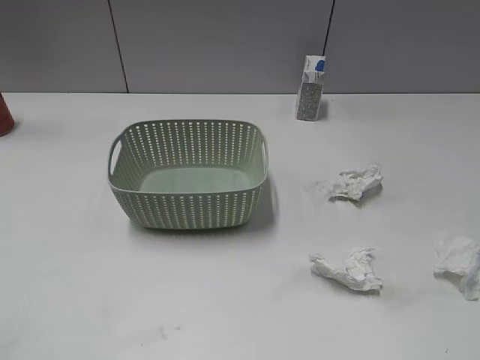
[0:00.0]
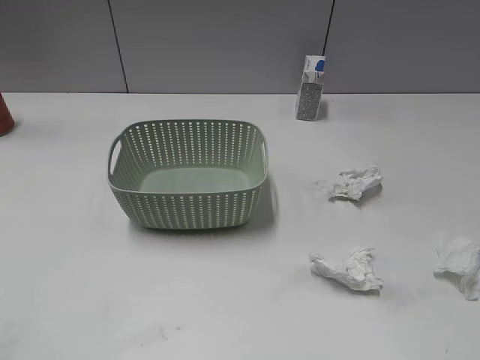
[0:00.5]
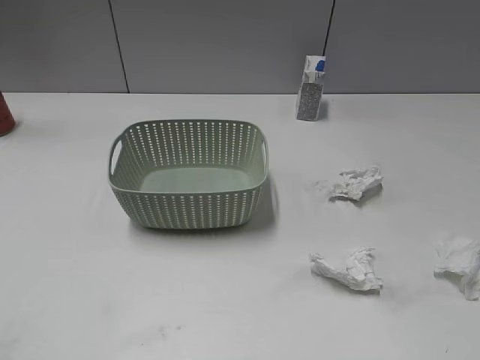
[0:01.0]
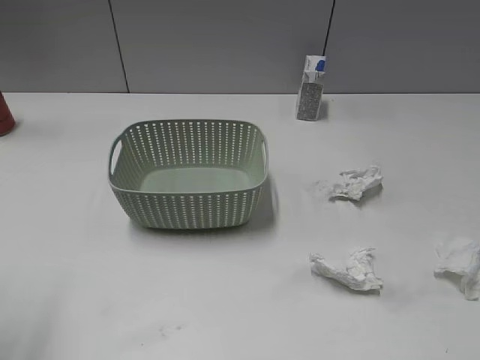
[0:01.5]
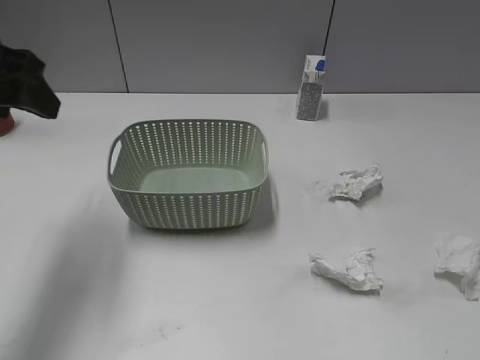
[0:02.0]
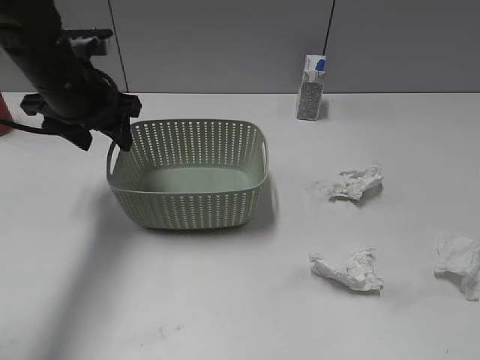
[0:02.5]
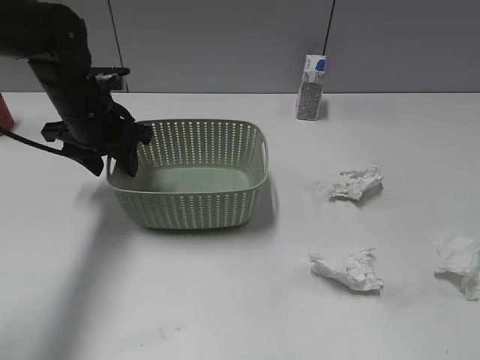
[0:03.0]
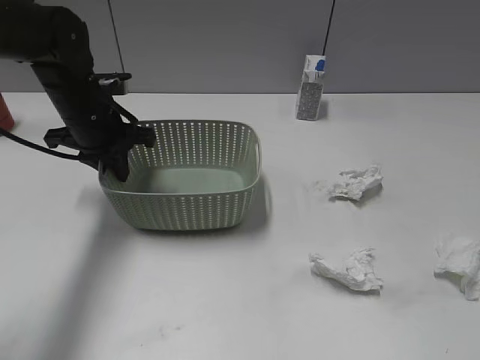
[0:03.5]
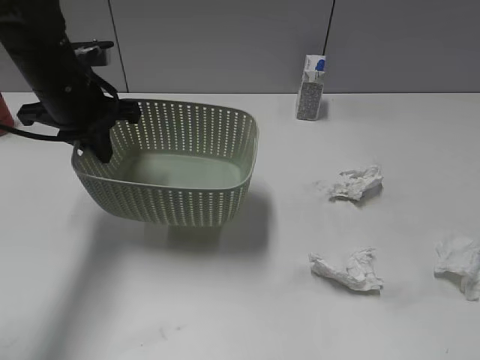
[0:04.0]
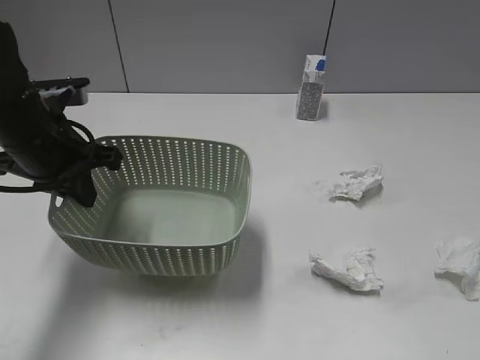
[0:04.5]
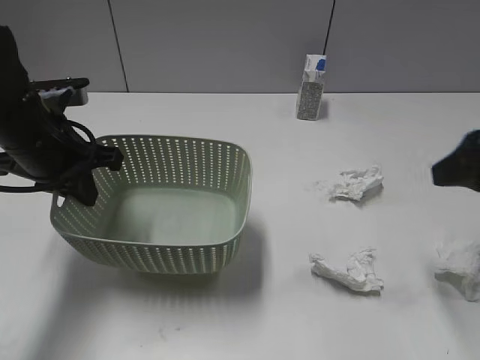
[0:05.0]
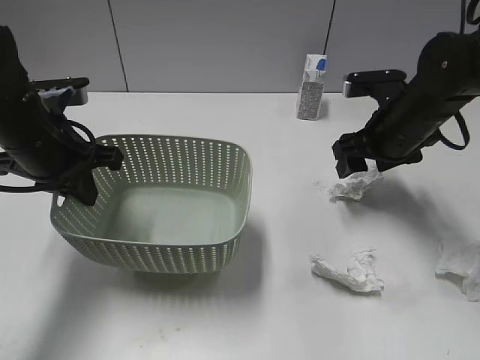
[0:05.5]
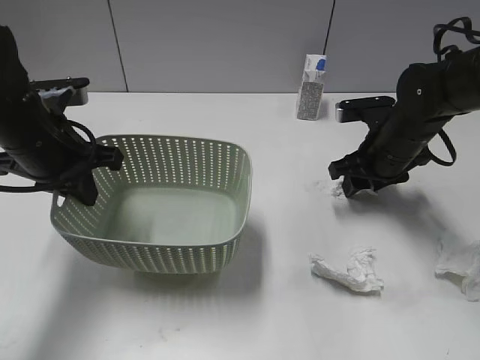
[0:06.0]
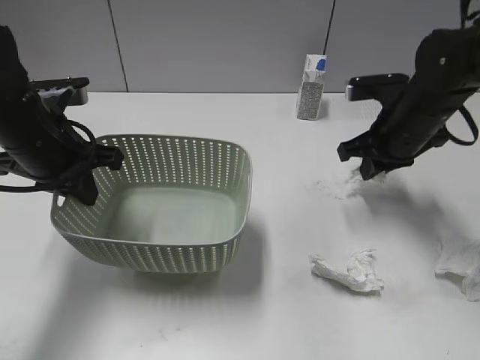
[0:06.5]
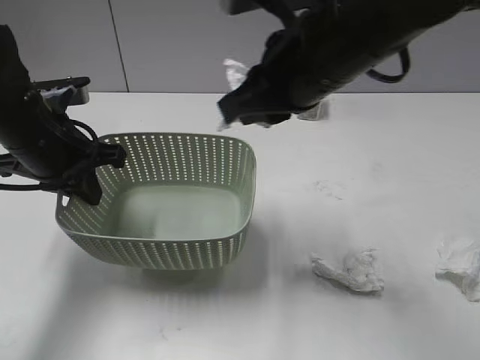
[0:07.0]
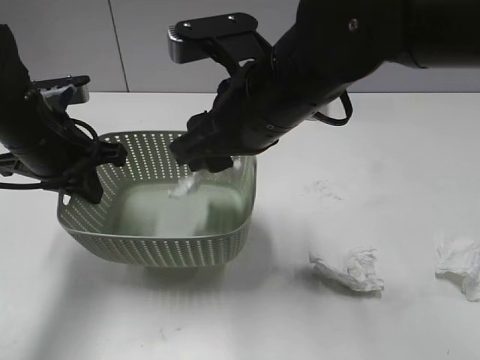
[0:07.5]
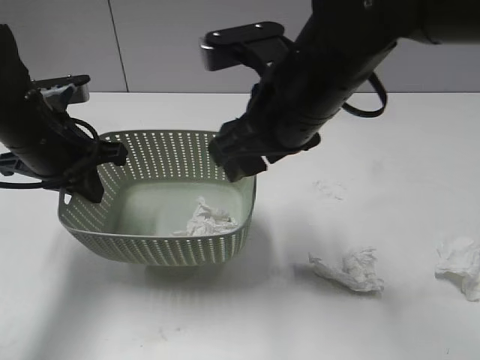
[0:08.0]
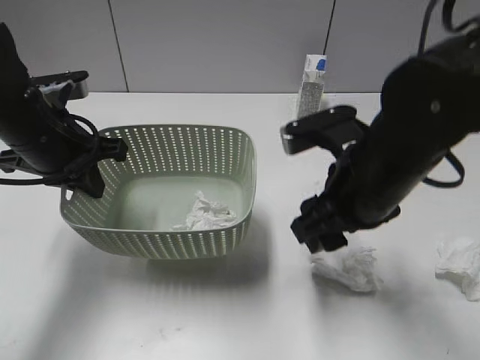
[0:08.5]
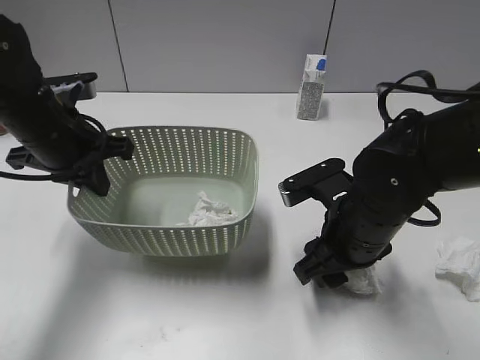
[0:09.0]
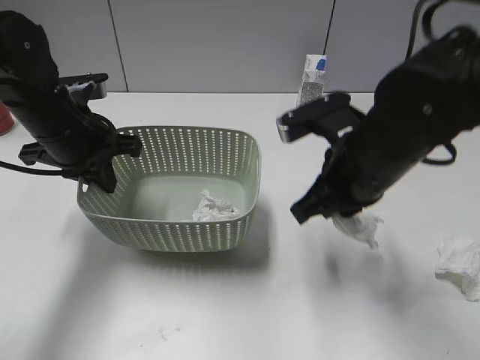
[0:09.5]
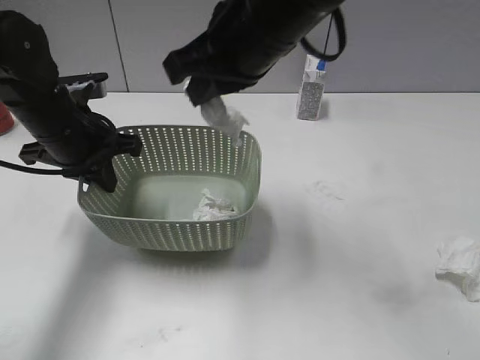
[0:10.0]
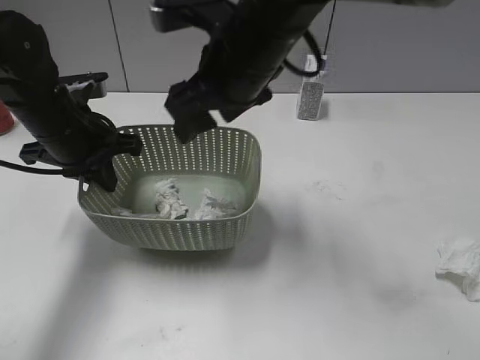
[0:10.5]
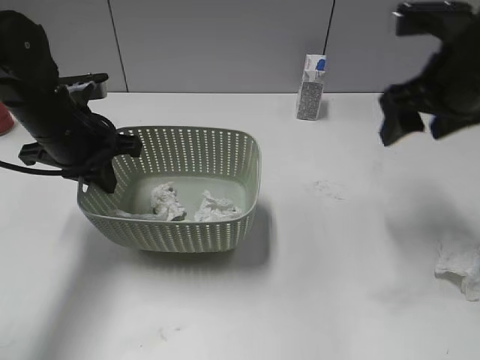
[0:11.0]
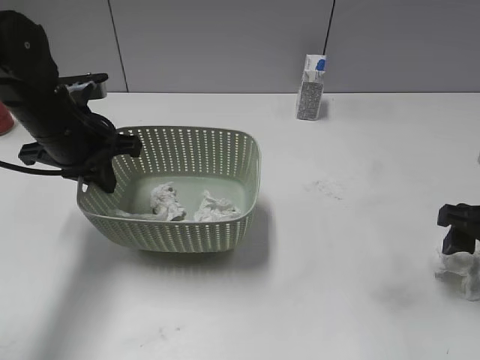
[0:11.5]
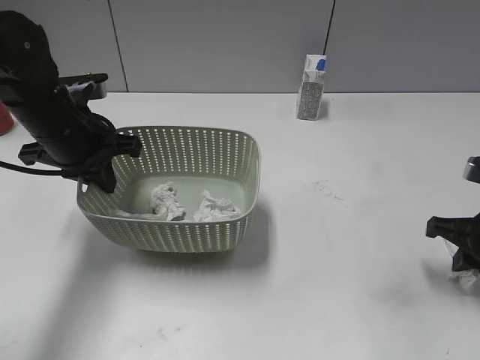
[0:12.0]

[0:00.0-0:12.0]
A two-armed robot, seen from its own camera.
Step, 0:02.0 to 0:03.5: Grasp the basket with left gripper.
Step, 0:04.5 to 0:06.5: Grasp the waste paper with right gripper.
Step, 0:07.0 to 0:07.5: Place the waste paper in the basket with right gripper.
Step, 0:08.0 to 0:09.0: Grasp the waste paper with right gripper.
Step, 0:09.5 to 0:10.5: Place the waste paper in the basket with right gripper.
0:02.0 to 0:04.0: The left gripper shifts some 15 cm downward, forward and to the right, and closes its fingers.
0:04.0 to 0:06.0: The right gripper shifts approximately 40 cm forward and downward; the left gripper moves backward, about 5 cm.
0:06.0 to 0:08.0: The right gripper travels to the left, upward and backward by about 25 cm, and closes, then opens again.
0:08.0 to 0:10.0: The right gripper reaches some 15 cm downward, then returns, and closes its fingers.
0:10.0 to 0:12.0: The right gripper shifts about 30 cm to the right and downward, and opens and closes again.

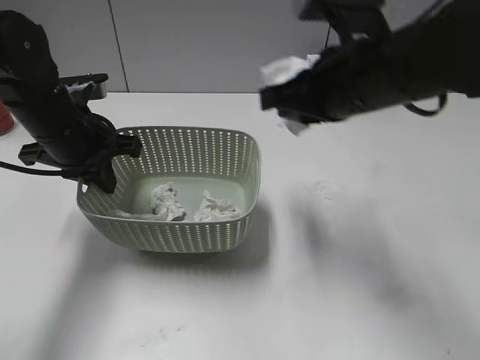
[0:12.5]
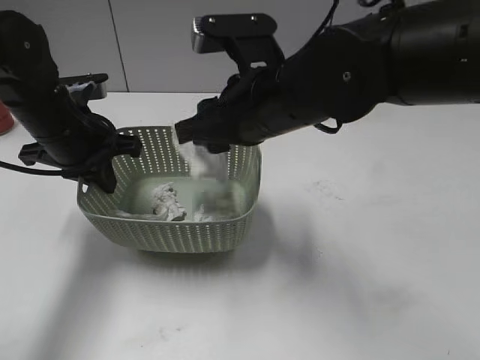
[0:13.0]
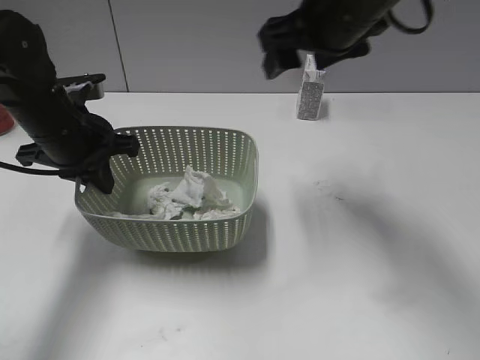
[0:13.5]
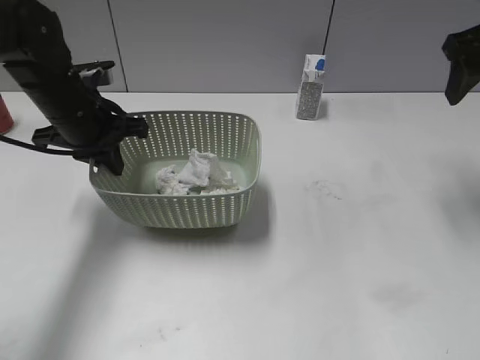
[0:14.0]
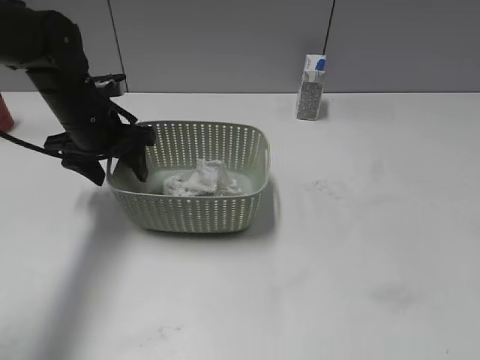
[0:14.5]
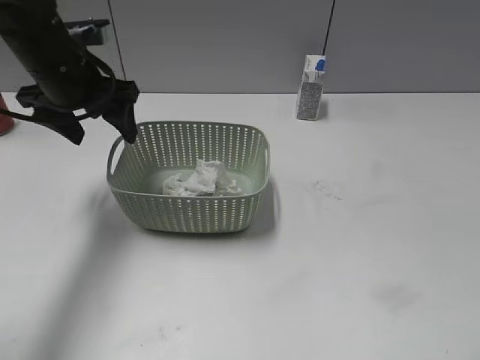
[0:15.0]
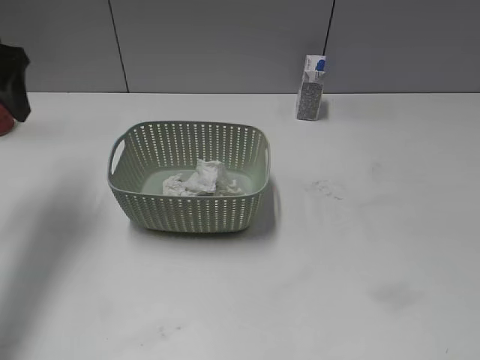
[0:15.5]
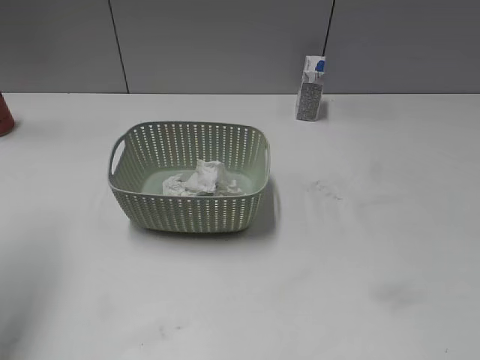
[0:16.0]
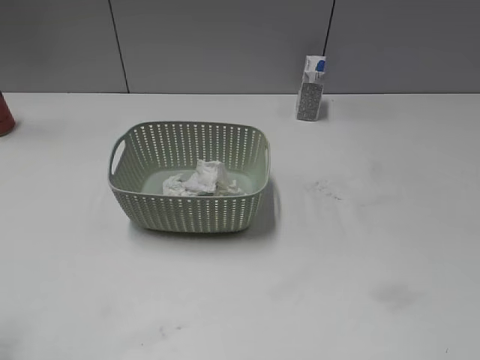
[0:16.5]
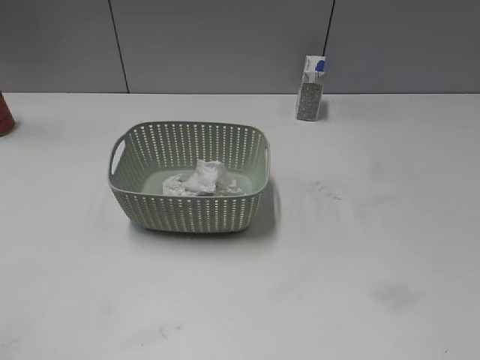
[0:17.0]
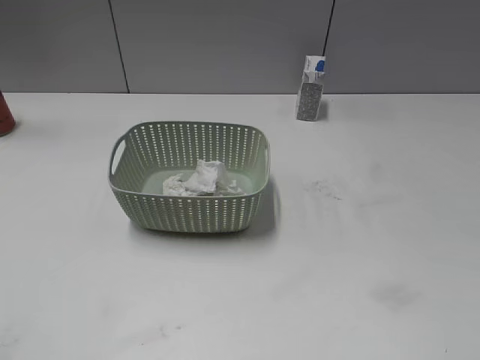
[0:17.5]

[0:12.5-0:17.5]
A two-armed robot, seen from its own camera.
Step, 0:13.5 to 0:14.5: Place the basket on the table with left gripper.
0:12.5 to 0:15.0: The left gripper heads upward, covering roughly 5 cm, and opens its fingers; the right gripper is displaced to the right and backward by approximately 25 cm, and opens up.
0:15.0 to 0:17.5: The left gripper heads backward, covering approximately 40 cm.

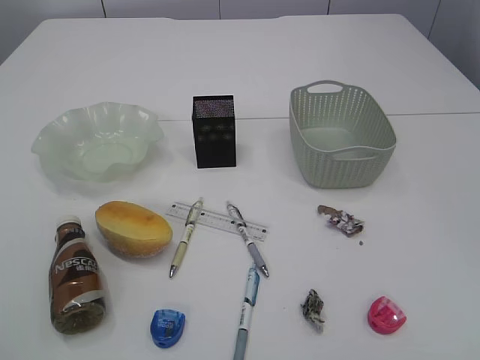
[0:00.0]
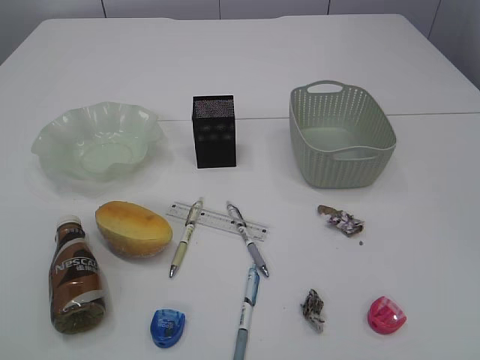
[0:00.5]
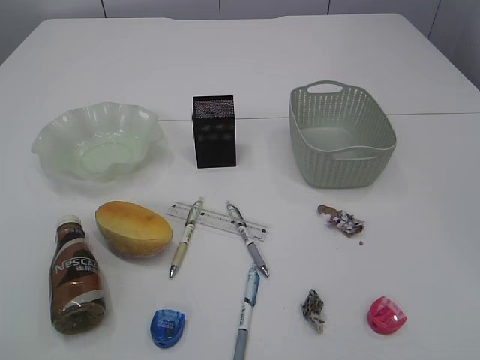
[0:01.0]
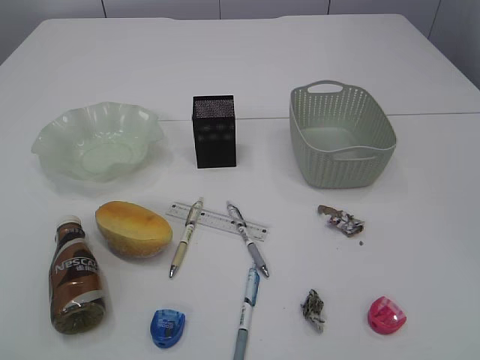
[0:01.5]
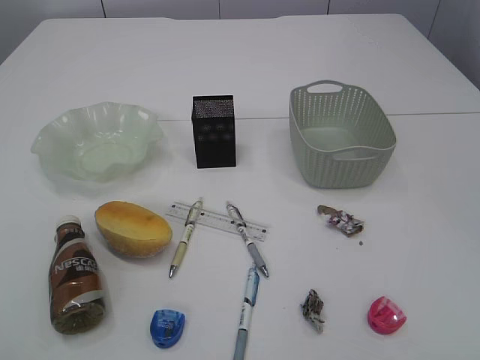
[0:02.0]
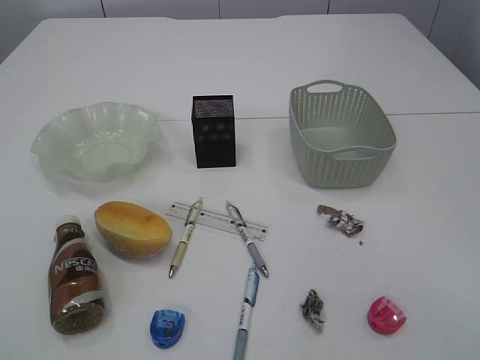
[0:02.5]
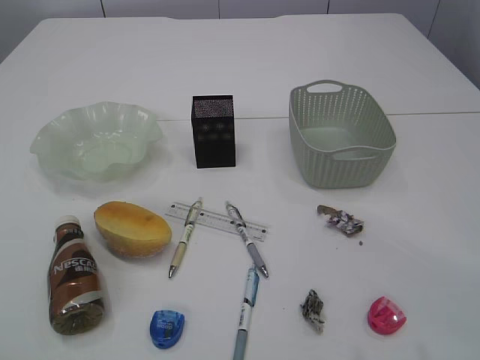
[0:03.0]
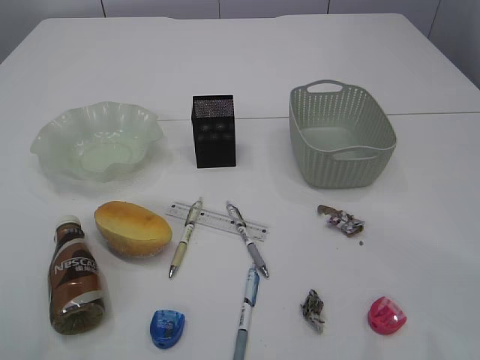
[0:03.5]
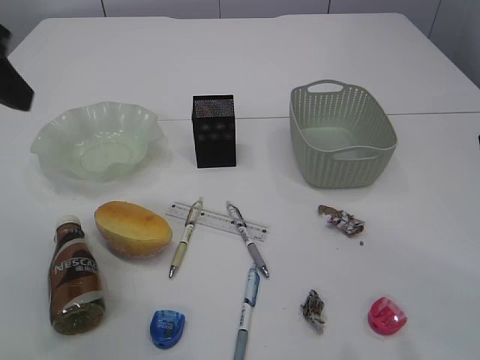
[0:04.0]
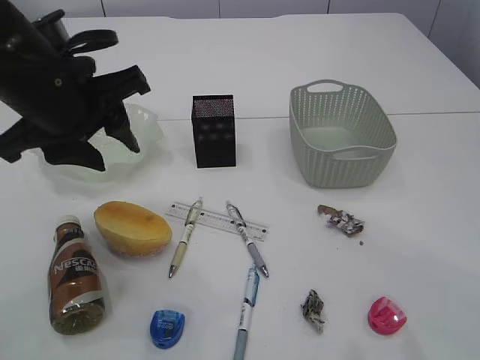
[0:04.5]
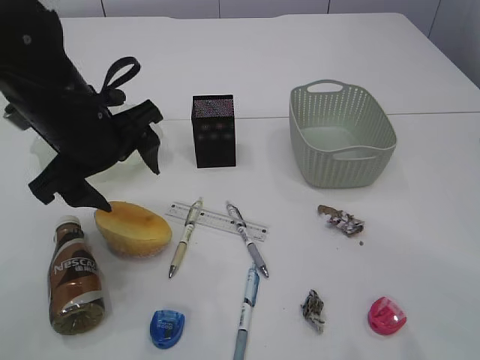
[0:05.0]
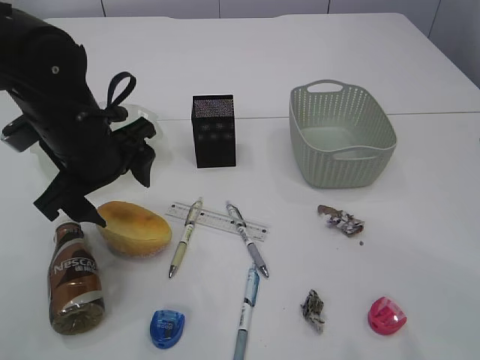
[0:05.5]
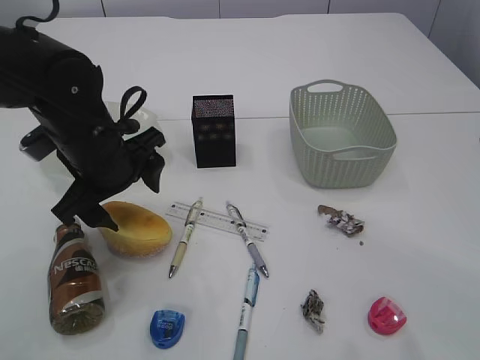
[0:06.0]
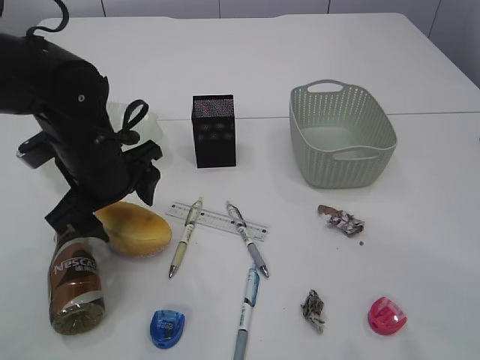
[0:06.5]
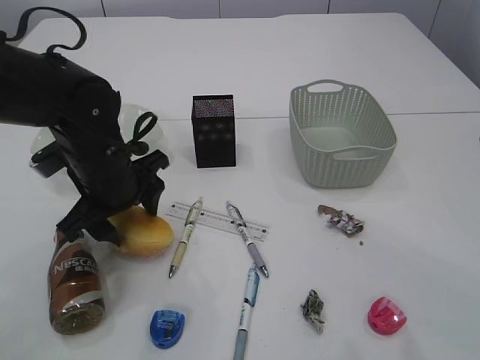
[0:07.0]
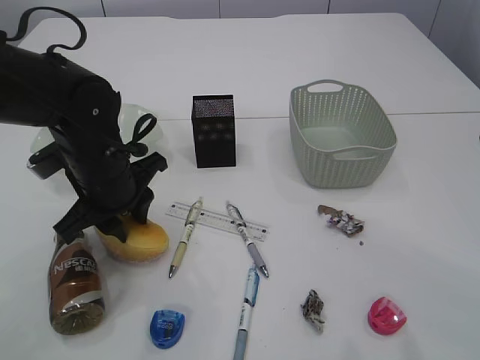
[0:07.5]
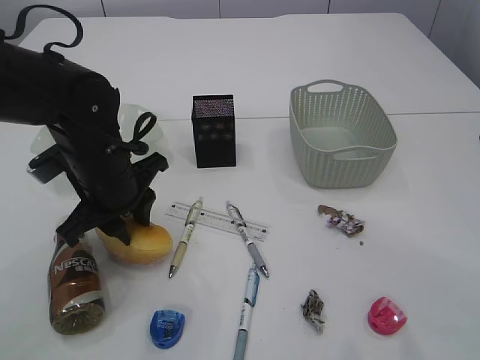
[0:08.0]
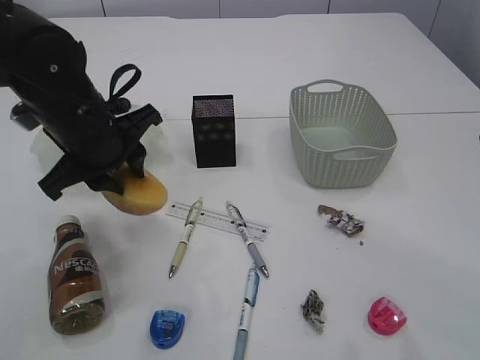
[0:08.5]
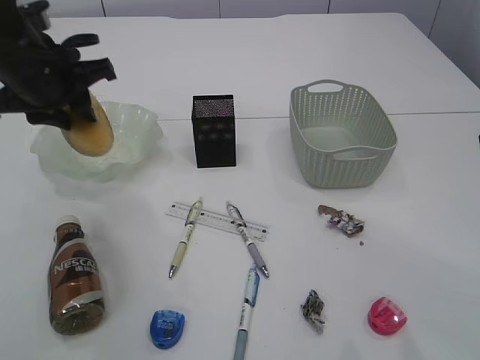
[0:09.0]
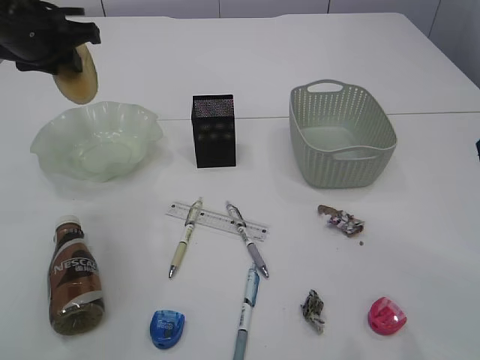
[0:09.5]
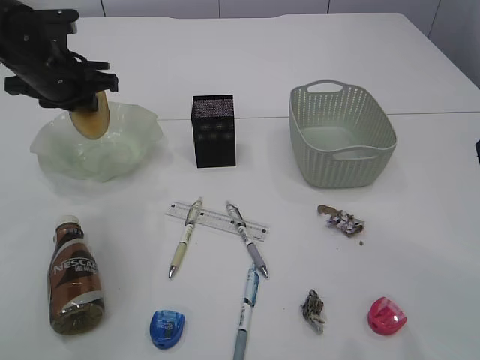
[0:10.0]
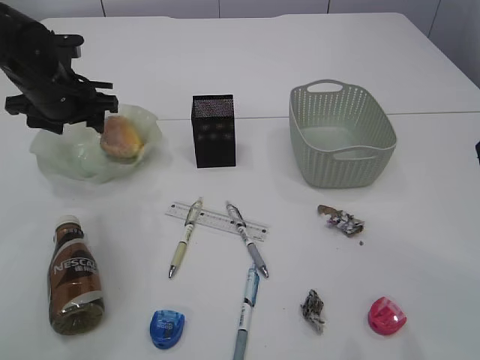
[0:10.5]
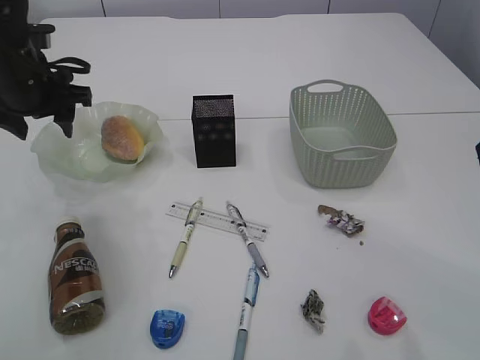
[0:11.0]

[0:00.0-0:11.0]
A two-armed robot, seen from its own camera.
Step, 0:08.5 to 0:10.5: place the bread in the plate.
0:03.5 to 0:05.5: The left gripper heads downward, to the right and forward, covering approximately 30 cm, and opens its fingers.
0:05.5 to 0:07.5: The left gripper travels downward by some 5 cm, and closes its fingers.
0:07.5 to 0:09.0: The left gripper goes roughly 10 cm upward and to the left.
0:09.0 to 0:11.0: The left gripper opens its fingers.
